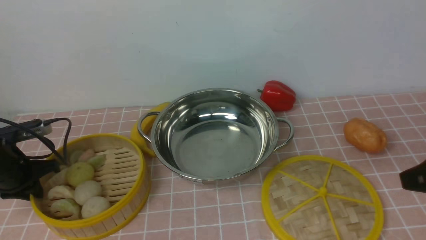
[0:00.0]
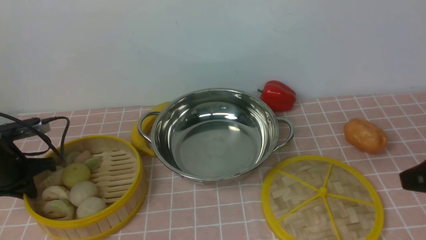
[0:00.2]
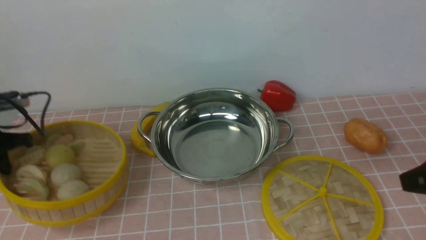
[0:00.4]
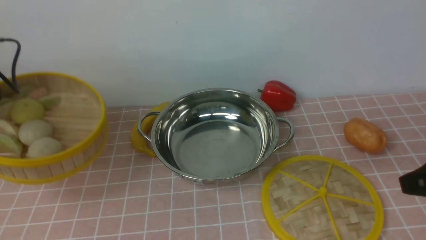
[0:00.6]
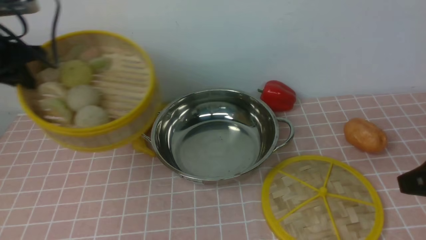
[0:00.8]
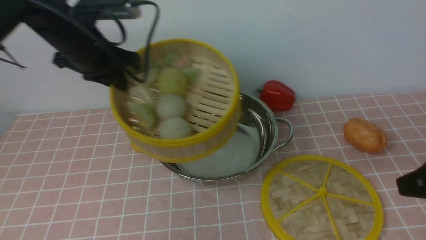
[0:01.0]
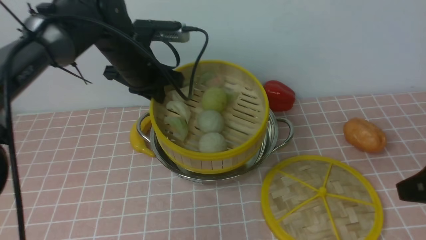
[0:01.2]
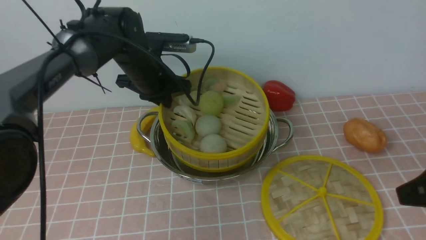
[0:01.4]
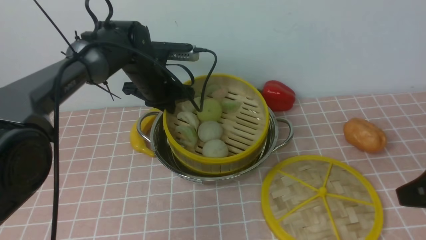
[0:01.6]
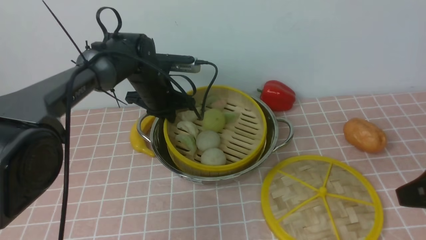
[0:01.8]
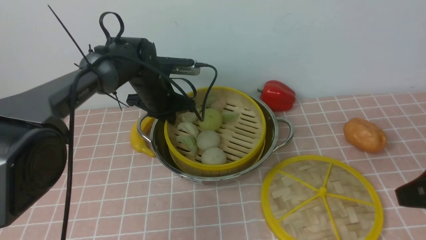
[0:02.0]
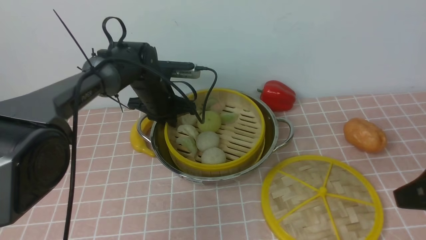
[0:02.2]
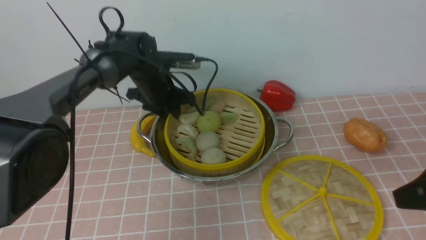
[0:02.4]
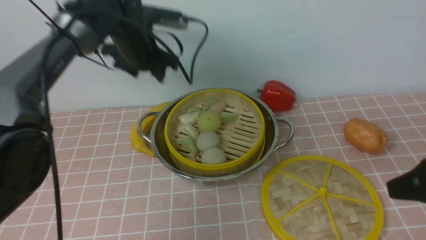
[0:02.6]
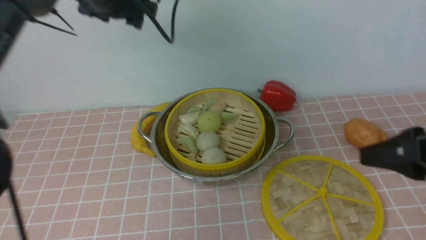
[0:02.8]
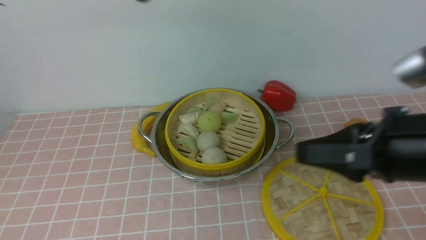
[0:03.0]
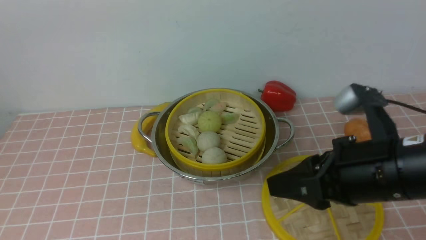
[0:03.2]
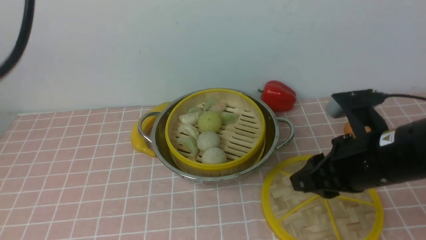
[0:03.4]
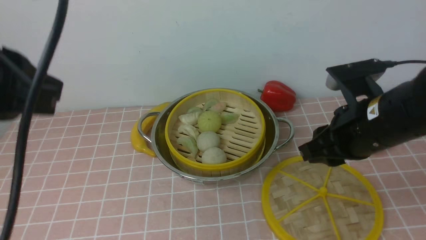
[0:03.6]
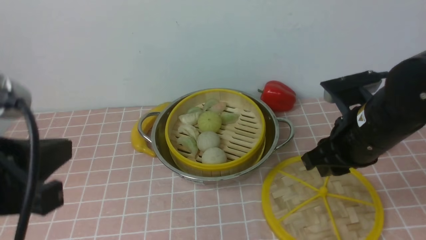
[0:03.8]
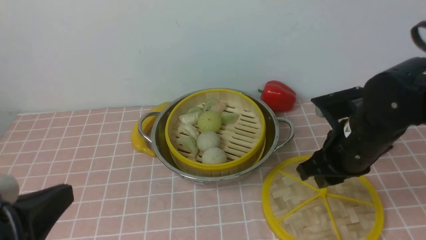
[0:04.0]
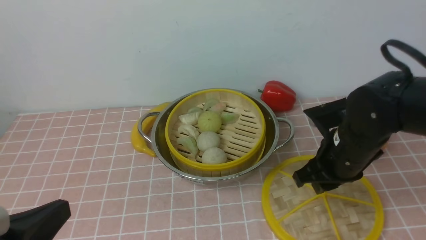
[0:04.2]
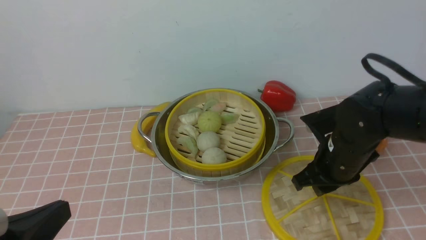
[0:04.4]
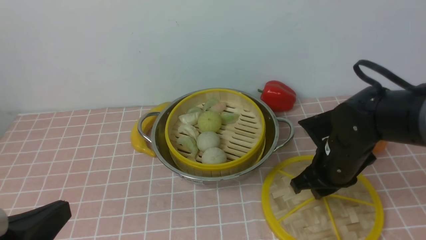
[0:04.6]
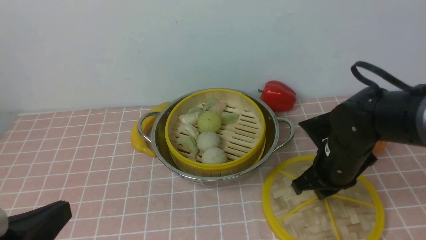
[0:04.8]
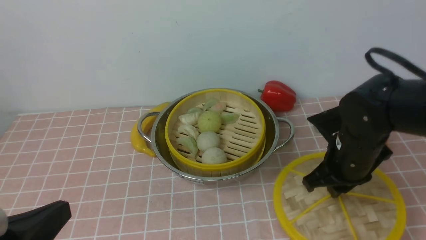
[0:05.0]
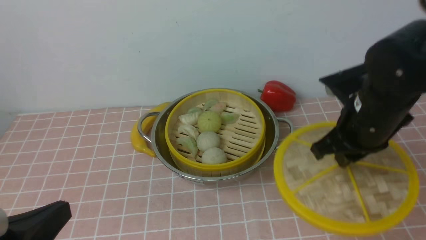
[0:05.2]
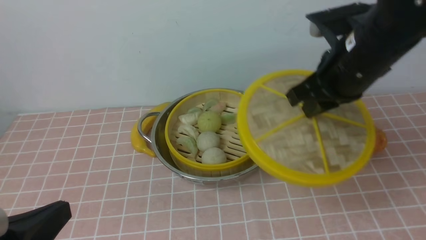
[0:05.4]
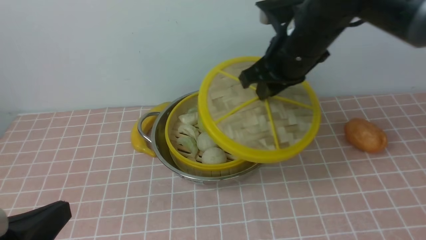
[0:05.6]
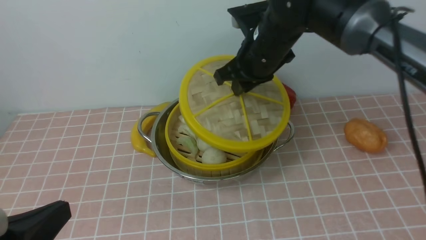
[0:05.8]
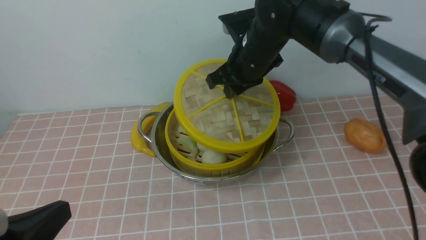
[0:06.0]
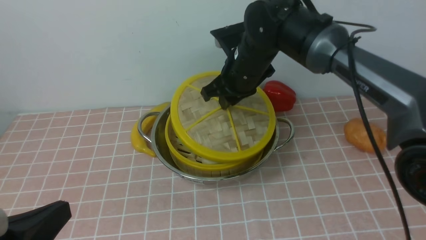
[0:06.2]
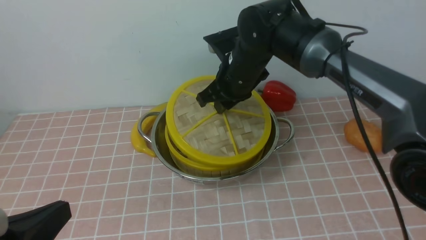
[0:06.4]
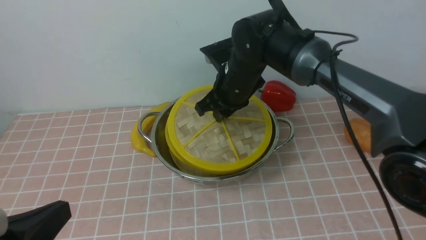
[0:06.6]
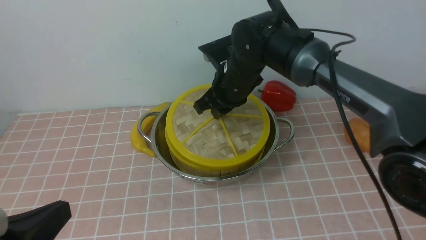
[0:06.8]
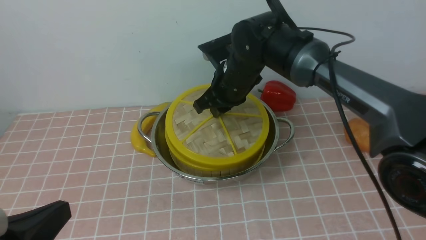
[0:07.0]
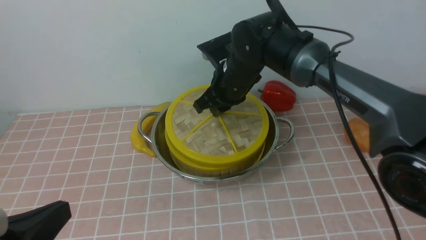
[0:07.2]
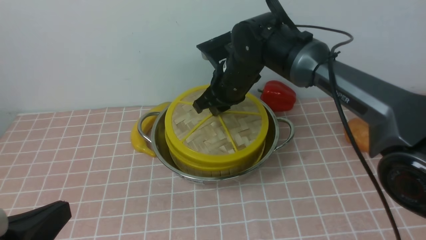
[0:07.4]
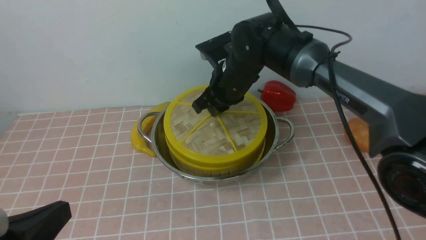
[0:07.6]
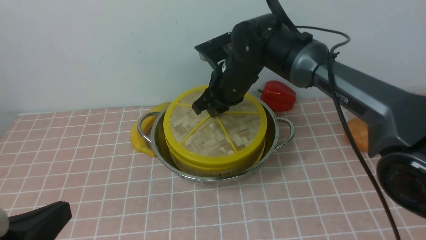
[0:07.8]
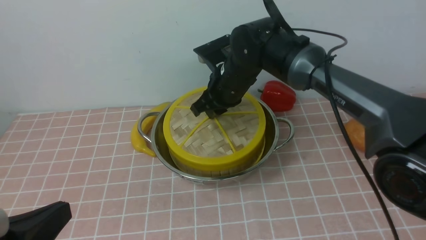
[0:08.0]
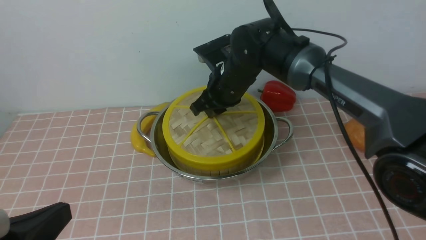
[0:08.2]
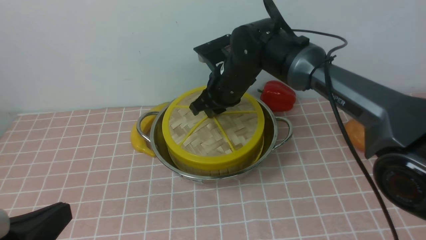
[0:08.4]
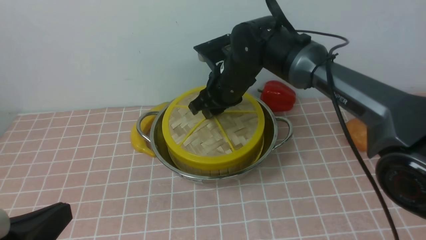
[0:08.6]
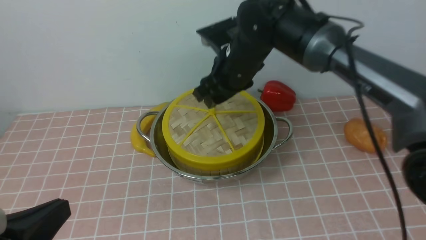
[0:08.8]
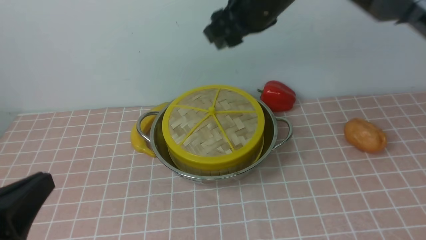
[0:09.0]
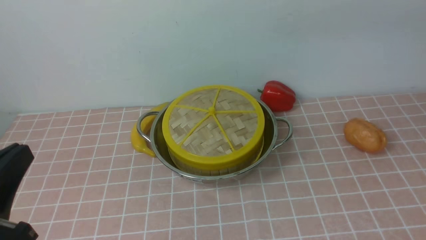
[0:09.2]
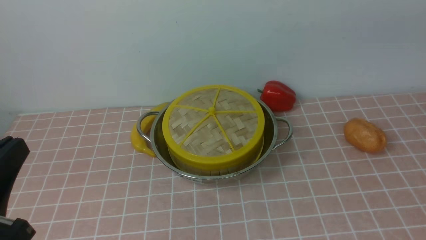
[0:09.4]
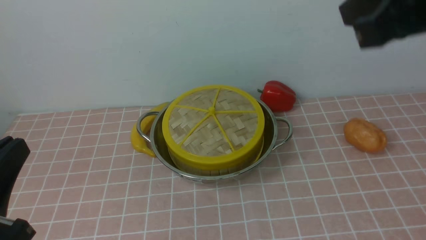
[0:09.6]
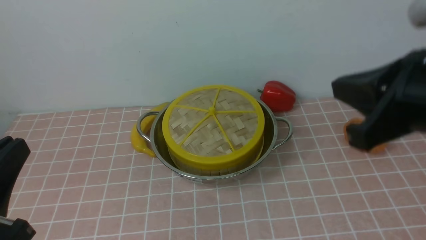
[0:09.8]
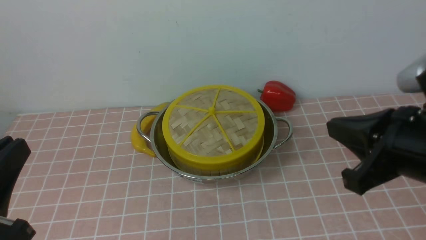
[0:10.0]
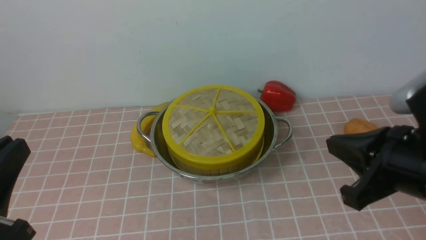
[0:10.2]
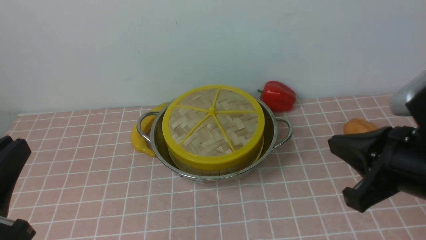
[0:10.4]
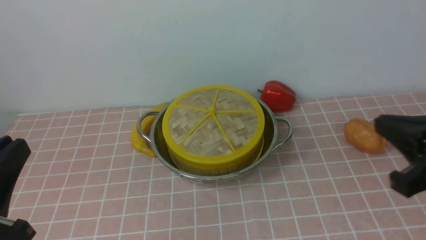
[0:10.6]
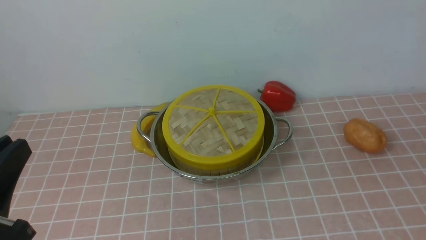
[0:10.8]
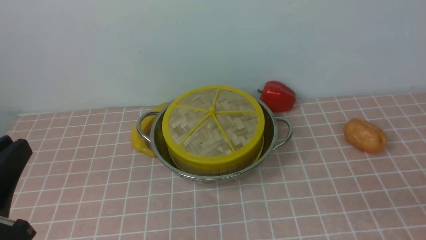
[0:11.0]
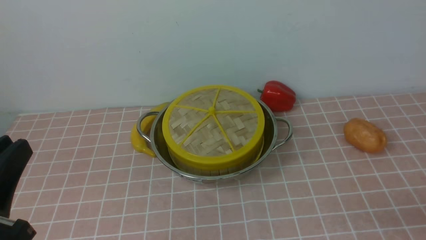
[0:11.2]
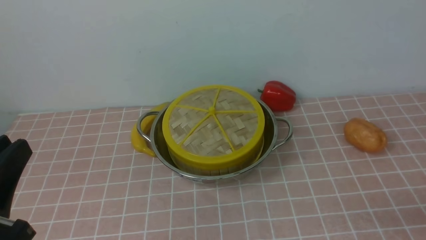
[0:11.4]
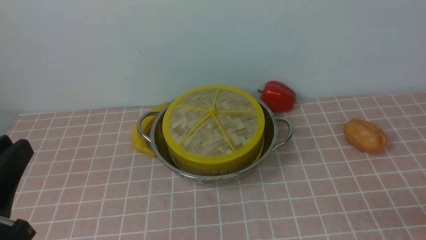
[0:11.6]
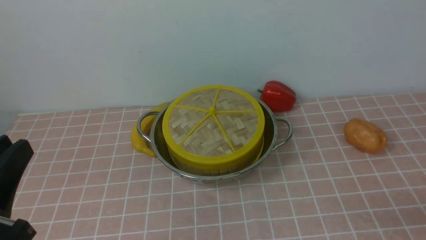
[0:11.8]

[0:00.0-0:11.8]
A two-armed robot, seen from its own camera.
Task of the whole recording: place the steamer in the pot on the pink tablecloth, and put the lid on the steamer.
Step, 0:00.4 to 0:02.4: use the left arm to put the steamer into the iron steamer pot in the middle.
Step, 0:02.6 to 0:05.0: use the right arm to lift the lid of the steamer.
Step, 0:05.2 to 0:08.8: use the right arm to place the steamer lid on the steamer.
0:00.0 to 0:01.4: The left gripper moves to the right, forward and upward, about 30 cm.
0:01.4 to 0:03.0: The right gripper travels to the left by some 5 cm; the left gripper heads upward, covering about 20 cm, and opens up.
0:03.0 to 0:04.4: The left gripper is displaced backward and downward by about 35 cm, and closes up; the right gripper travels downward and forward by approximately 15 cm.
0:04.4 to 0:06.0: The right gripper moves forward, to the left and upward, about 20 cm.
0:06.0 to 0:07.4: The right gripper changes place by roughly 5 cm.
0:07.4 to 0:08.8: The right gripper opens up.
0:08.8 to 0:10.4: The right gripper moves backward and to the right, approximately 30 cm, and closes up.
0:10.4 to 0:11.8: The right gripper is displaced backward, to the right and downward by about 20 cm, and opens its fingers.

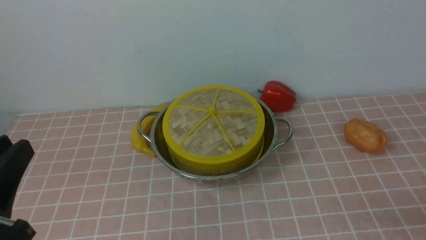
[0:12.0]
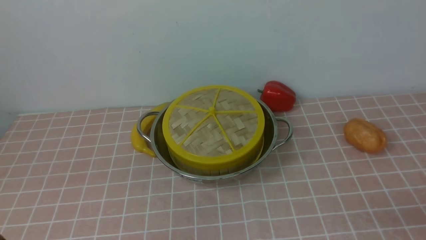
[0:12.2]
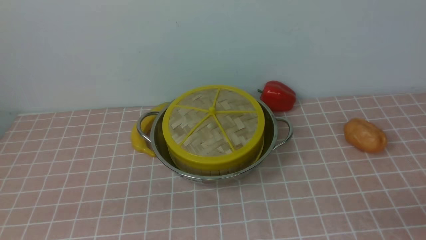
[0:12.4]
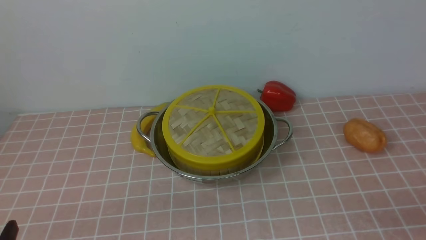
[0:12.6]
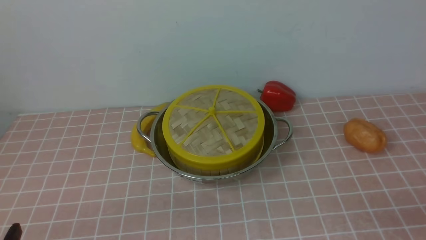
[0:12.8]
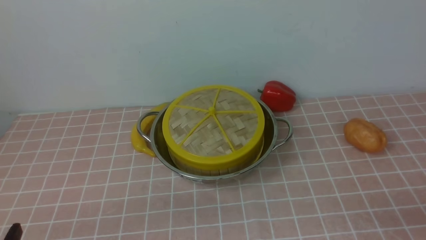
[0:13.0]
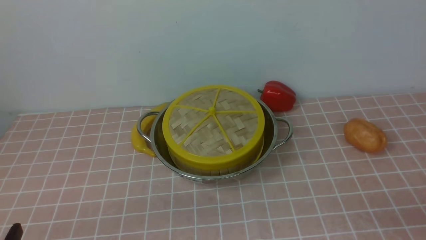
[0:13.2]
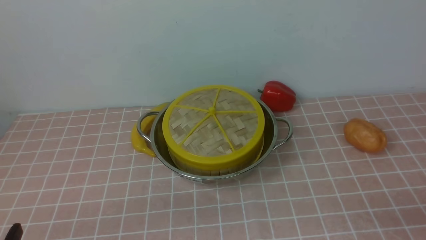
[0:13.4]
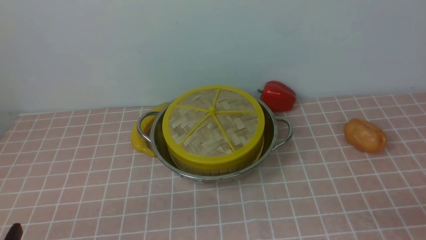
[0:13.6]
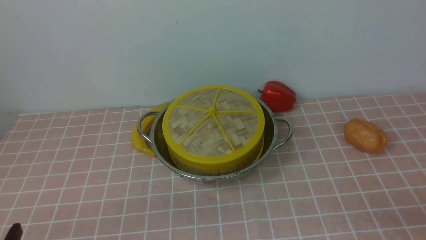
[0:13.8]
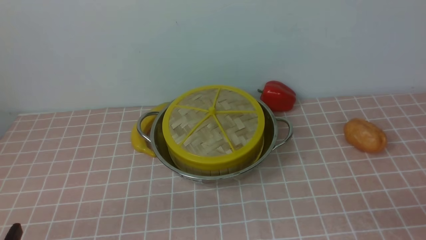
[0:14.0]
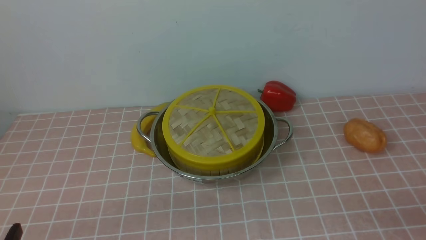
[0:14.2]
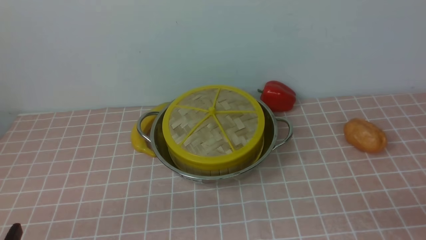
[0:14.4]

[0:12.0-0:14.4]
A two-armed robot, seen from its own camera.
Task of the whole recording: place the steamer in the pot on the pink tablecloth, and put the lid on the steamer.
0:12.0 to 0:13.2: The left gripper is displaced downward by roughly 10 cm.
0:13.2 to 0:14.4: Both grippers stay put.
